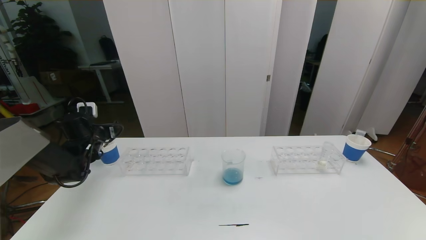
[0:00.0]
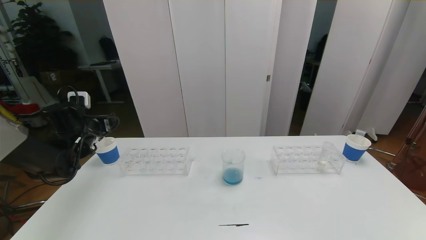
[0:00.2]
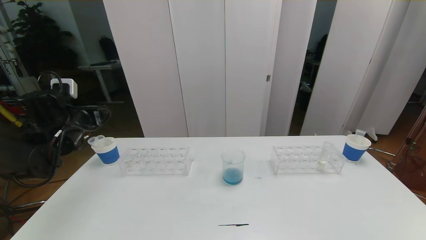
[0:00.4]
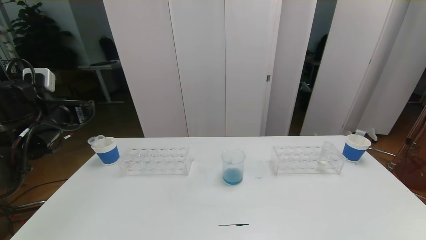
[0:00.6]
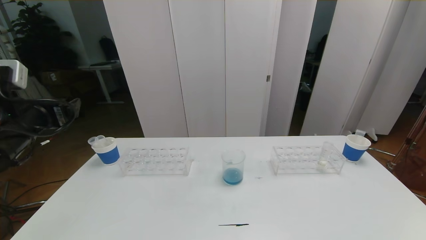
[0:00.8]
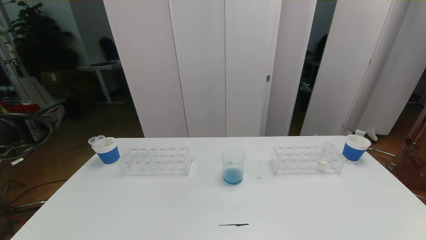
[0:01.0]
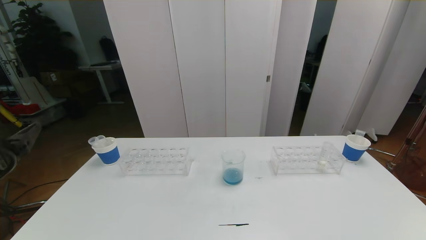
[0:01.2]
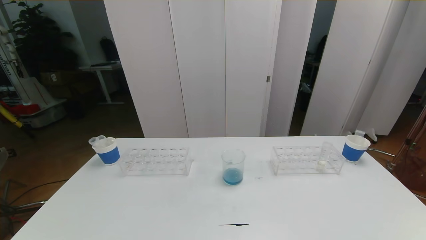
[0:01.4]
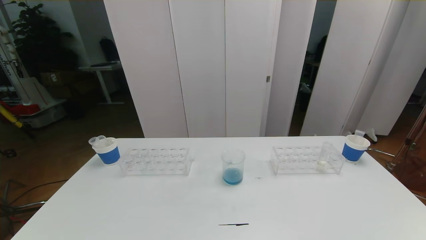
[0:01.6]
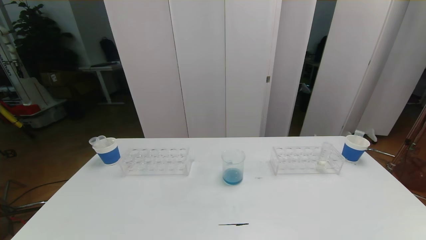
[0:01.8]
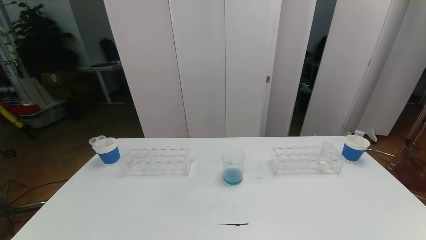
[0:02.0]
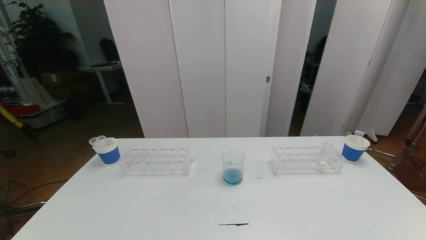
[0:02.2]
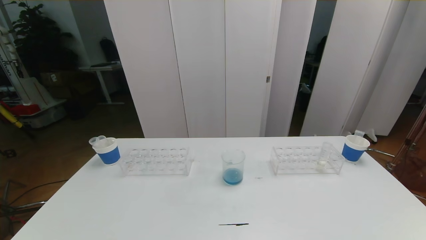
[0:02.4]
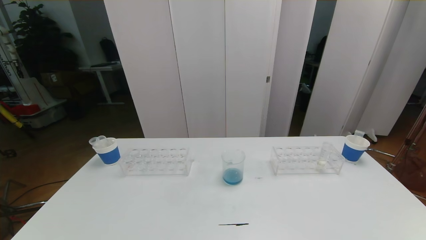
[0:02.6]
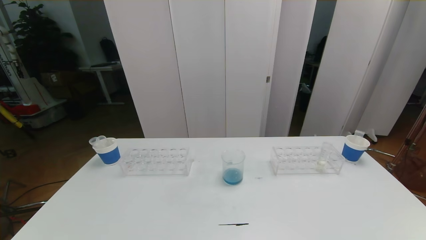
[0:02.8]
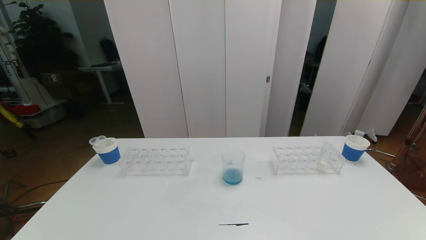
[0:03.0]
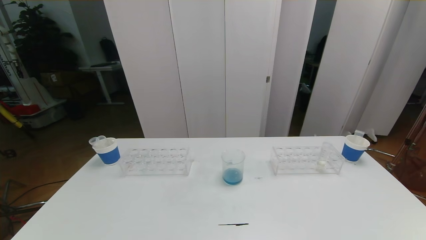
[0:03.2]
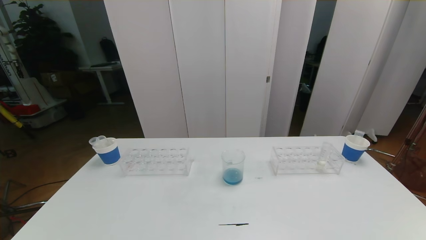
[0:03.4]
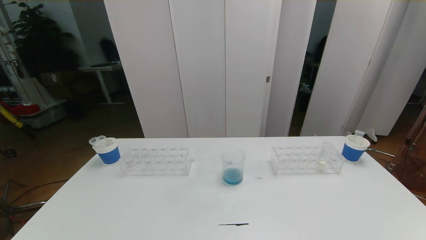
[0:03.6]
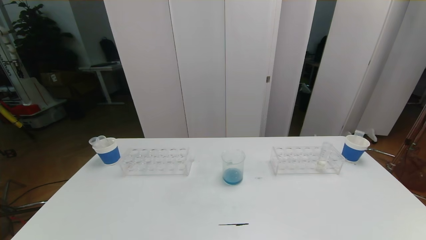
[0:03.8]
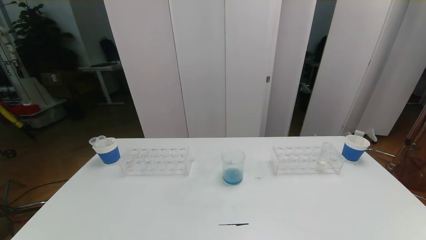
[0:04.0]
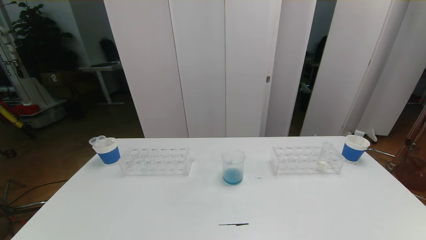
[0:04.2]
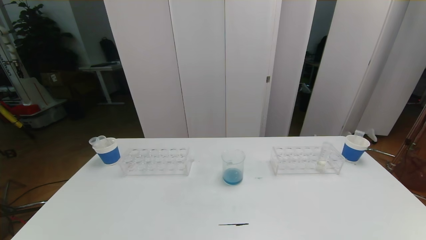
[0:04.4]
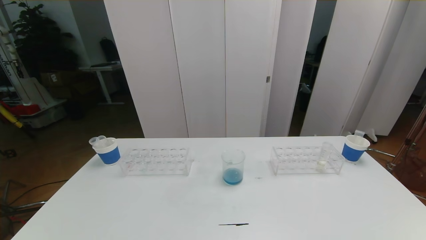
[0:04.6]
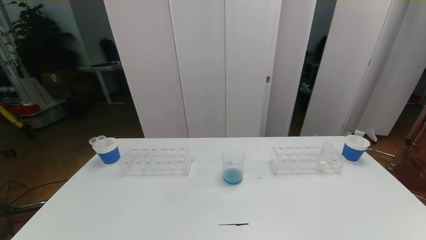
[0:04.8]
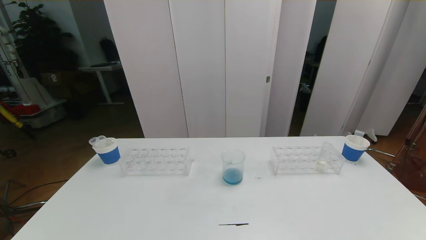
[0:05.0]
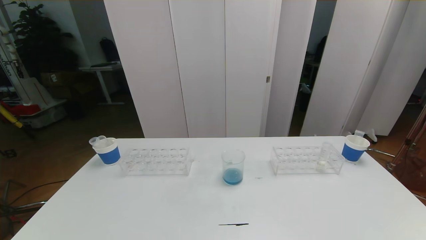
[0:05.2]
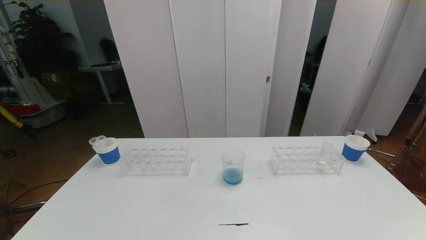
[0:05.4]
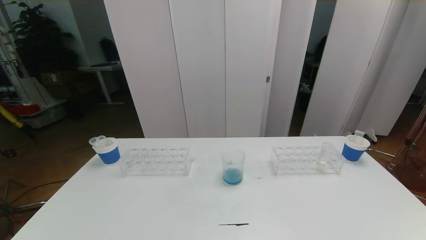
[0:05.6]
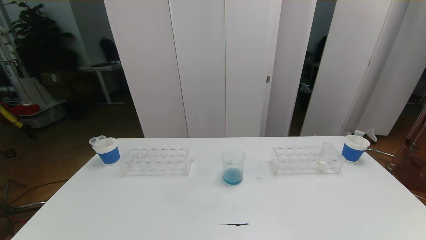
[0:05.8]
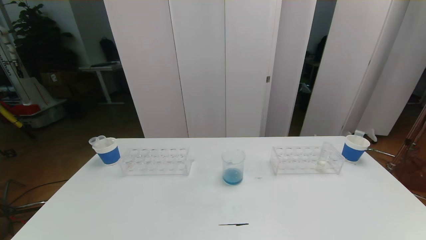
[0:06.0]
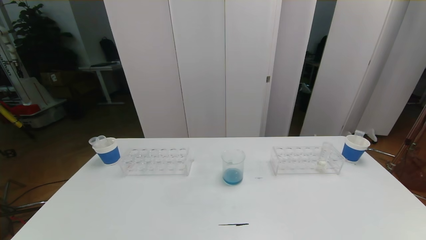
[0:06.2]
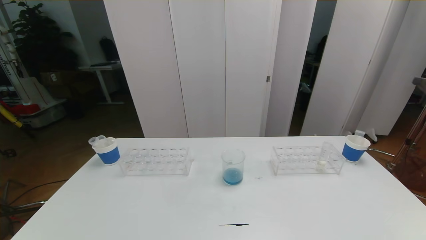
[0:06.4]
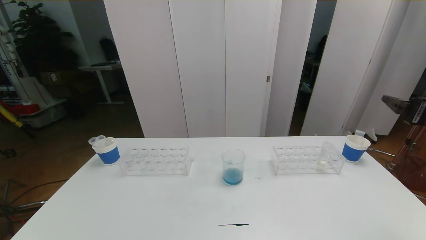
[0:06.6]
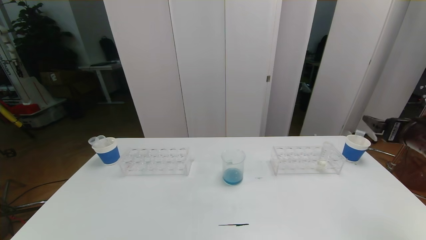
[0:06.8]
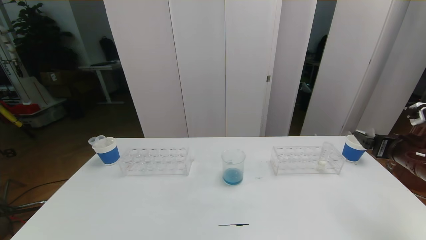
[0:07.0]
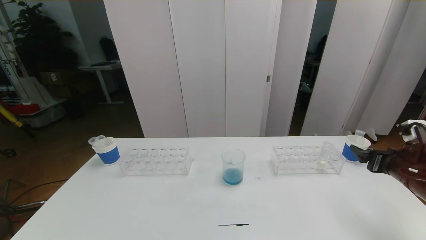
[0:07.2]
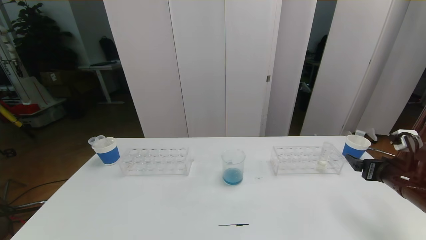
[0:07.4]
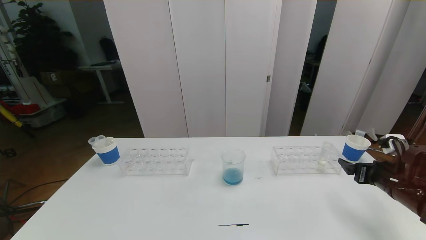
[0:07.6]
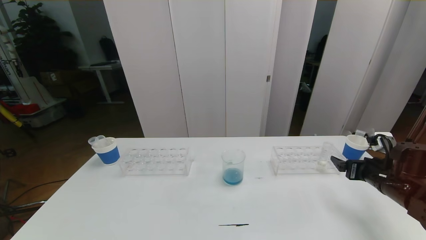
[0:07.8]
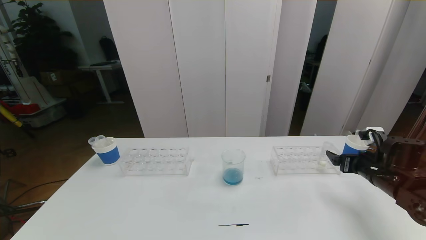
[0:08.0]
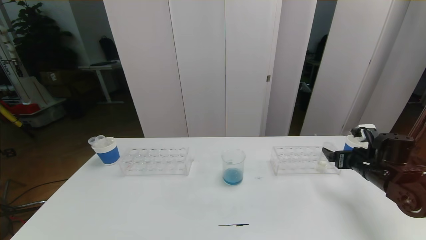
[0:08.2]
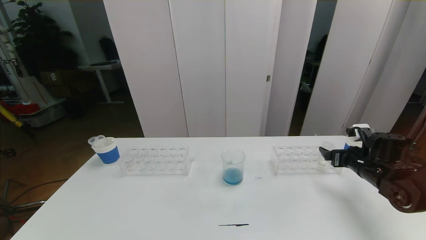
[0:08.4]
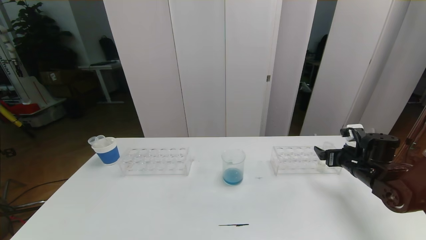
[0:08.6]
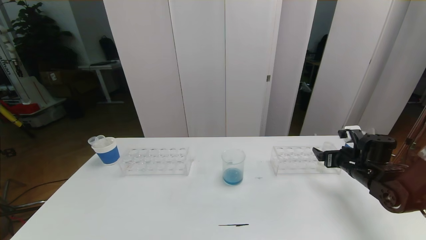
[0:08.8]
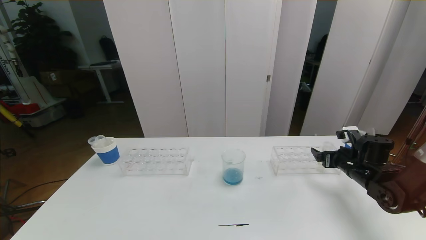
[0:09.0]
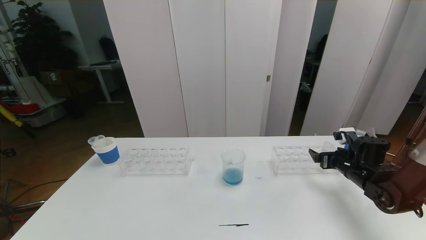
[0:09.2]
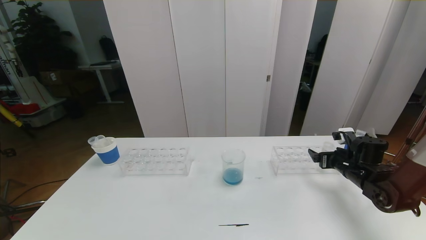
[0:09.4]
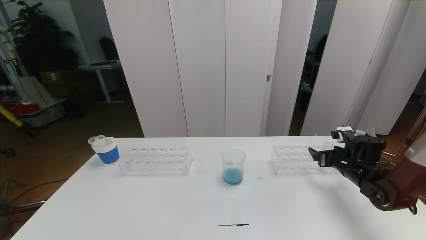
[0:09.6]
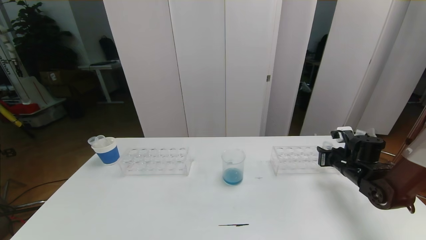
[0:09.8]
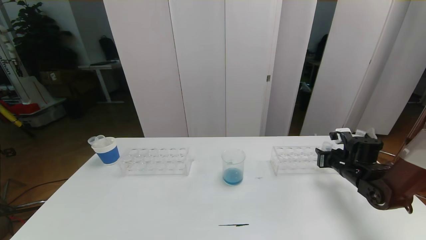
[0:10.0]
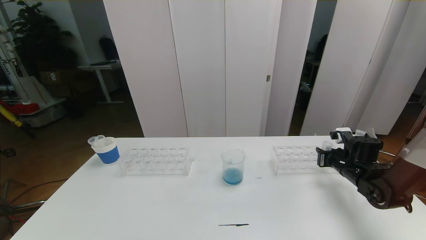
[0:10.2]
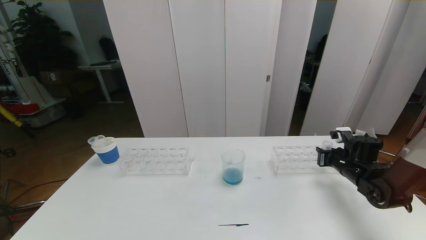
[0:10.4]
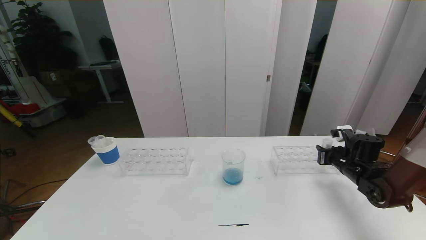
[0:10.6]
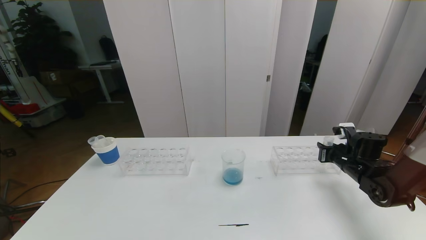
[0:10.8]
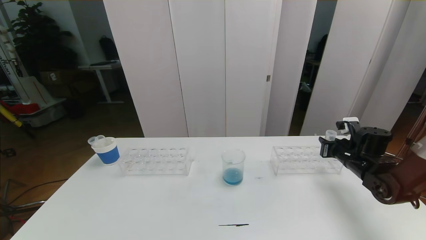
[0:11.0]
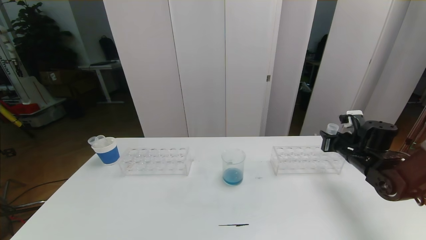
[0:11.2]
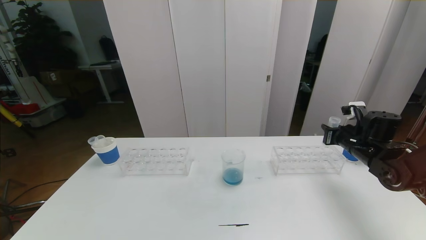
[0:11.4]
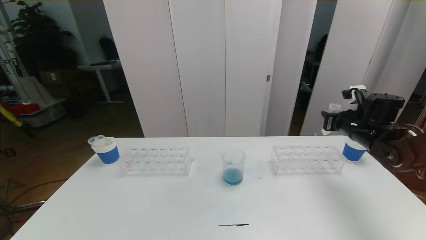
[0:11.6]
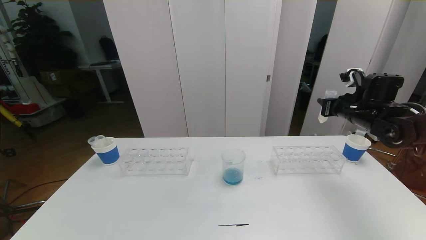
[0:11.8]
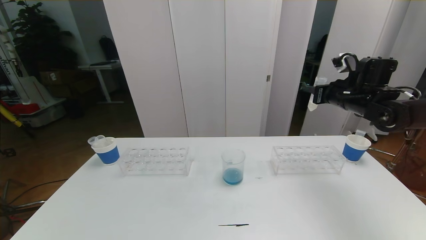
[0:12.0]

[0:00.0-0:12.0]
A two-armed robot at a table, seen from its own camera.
Task of the whole recording: pick up the test tube with red pigment the test tube with blue pigment and the test tube with white pigment by grippers and pour them into the beaker.
Step, 0:00.0 to 0:02.0: Pour the orange reagent into the graduated cylinder and place the test tube into the paper cup.
0:00.0 to 0:01.6: The left gripper heads backward, covering some 40 cm.
0:06.0 to 0:07.6: The right gripper heads downward and forward, covering about 30 cm.
0:07.6 to 0:09.0: The right gripper shifts some 10 cm forward.
0:09.0 to 0:10.4: The right gripper closes.
0:10.4 to 0:12.0: The right gripper travels upward by about 20 cm.

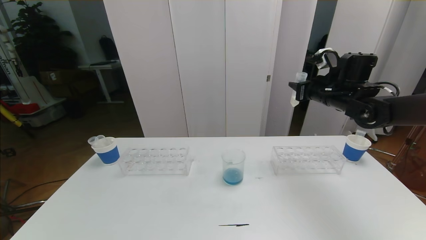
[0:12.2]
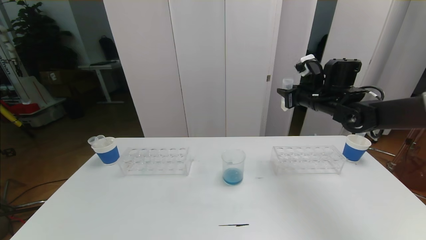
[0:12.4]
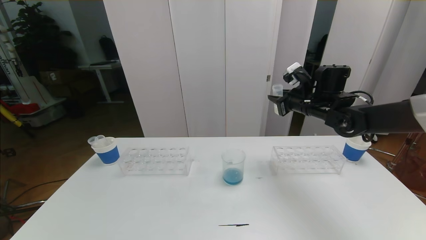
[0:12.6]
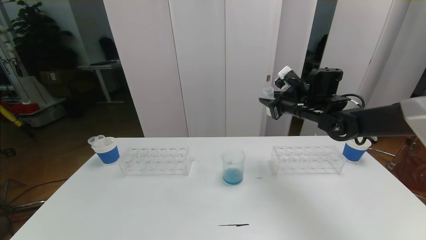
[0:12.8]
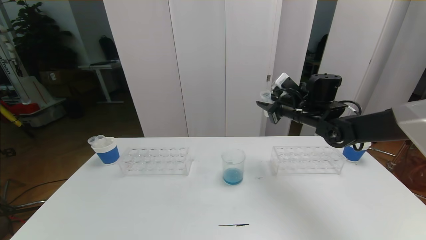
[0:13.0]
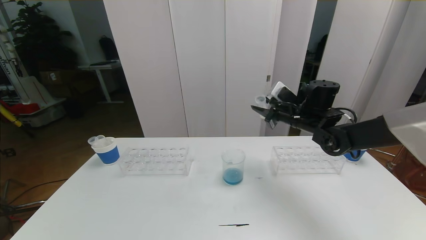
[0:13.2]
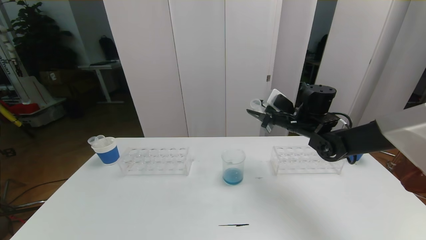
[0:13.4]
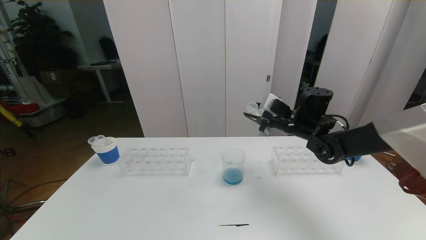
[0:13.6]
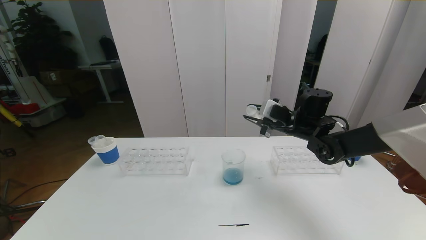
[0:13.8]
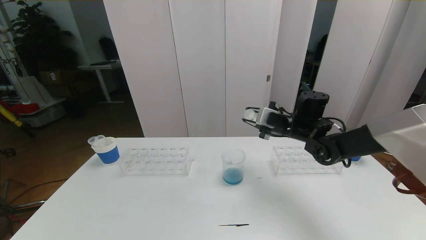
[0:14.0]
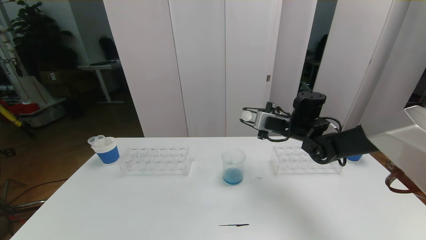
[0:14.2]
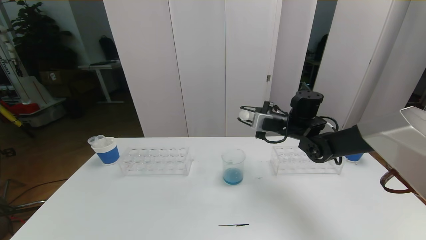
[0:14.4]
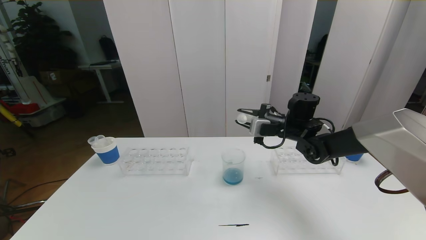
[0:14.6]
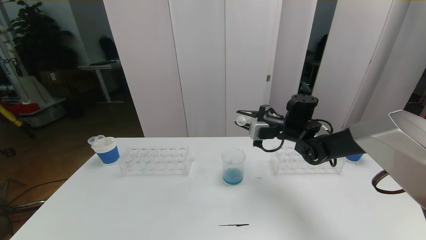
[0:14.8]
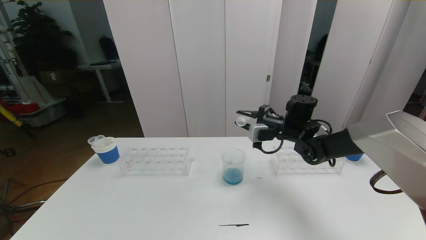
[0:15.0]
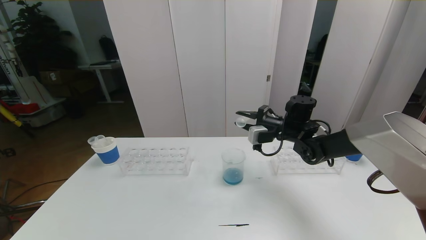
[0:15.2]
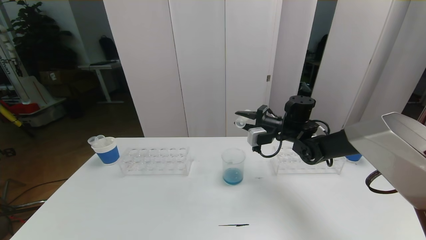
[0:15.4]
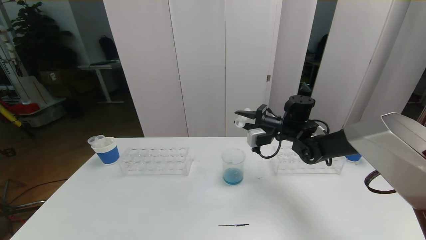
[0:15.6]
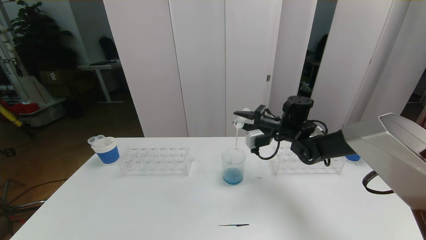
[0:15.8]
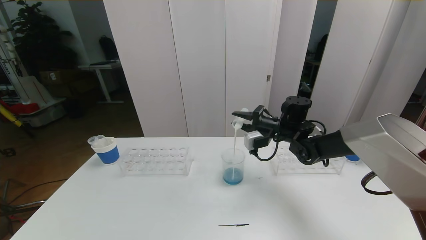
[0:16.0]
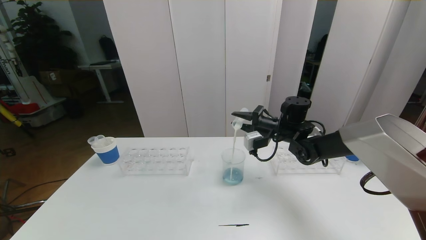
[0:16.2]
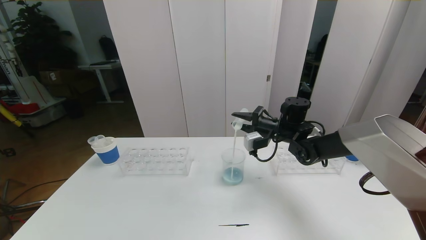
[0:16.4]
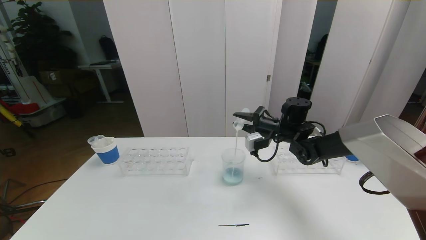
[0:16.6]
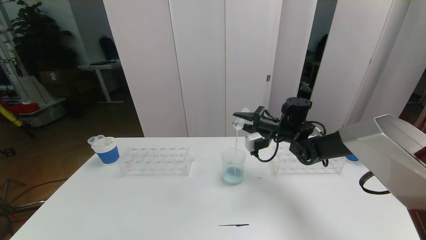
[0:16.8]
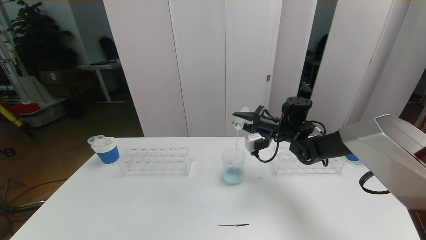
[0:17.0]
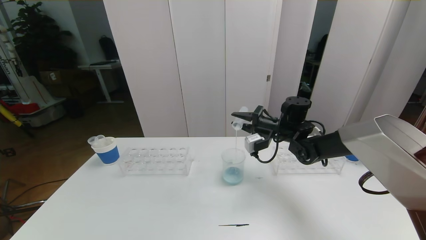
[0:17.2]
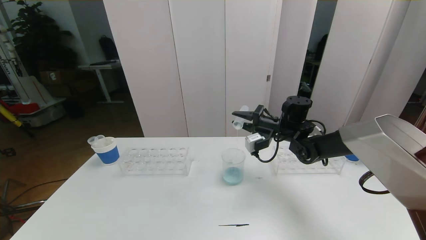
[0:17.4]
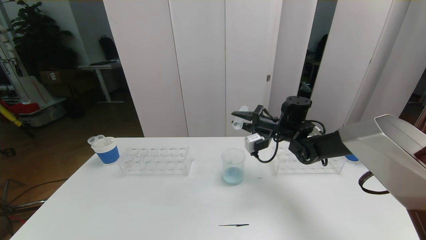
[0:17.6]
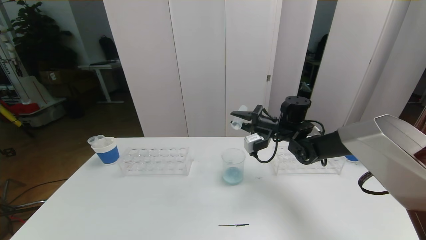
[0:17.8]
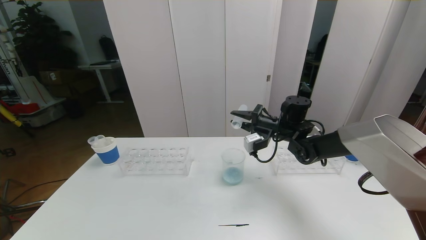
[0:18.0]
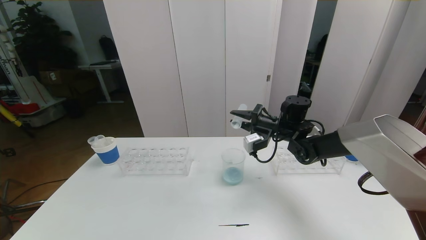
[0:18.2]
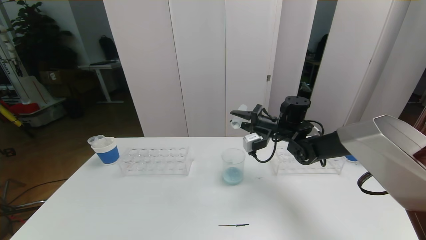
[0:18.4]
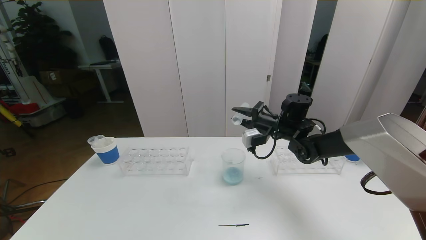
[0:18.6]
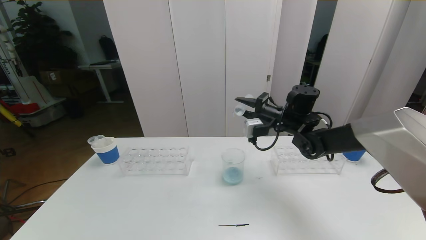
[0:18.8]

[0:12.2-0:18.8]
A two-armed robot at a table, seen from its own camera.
Task of the whole recording: pick up the test tube with red pigment the test tube with blue pigment and the test tube with white pigment by grippers and pour them into the beaker.
0:12.2 to 0:13.8: The right gripper shifts some 10 cm to the left and downward.
0:15.4 to 0:18.8: There are only small adjustments of the grippers.
